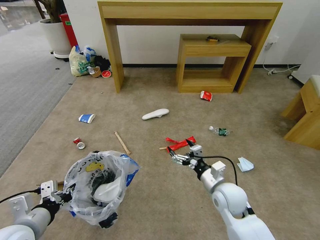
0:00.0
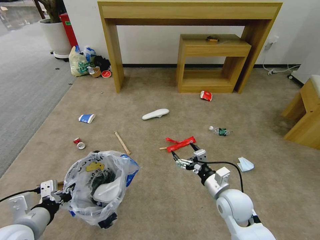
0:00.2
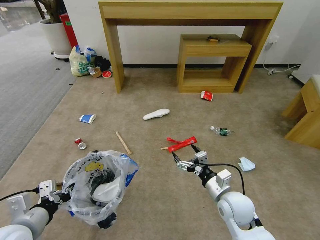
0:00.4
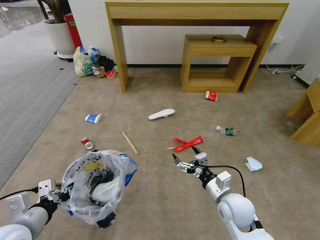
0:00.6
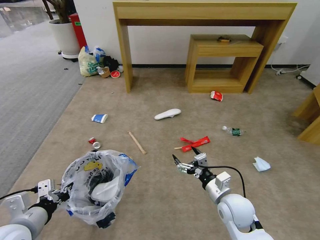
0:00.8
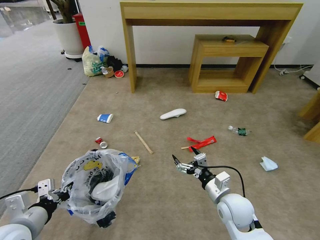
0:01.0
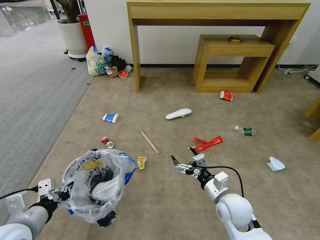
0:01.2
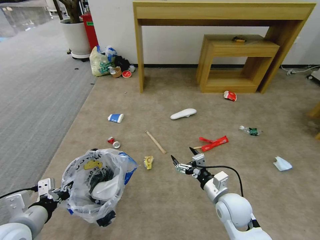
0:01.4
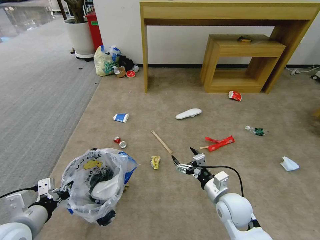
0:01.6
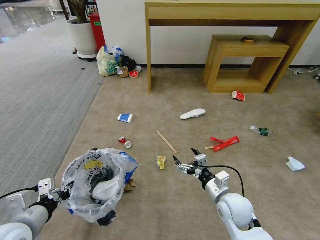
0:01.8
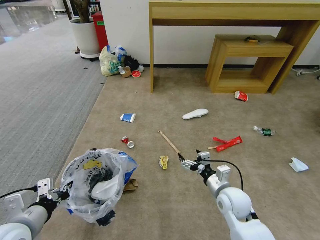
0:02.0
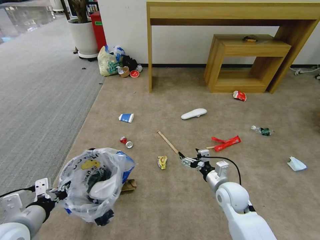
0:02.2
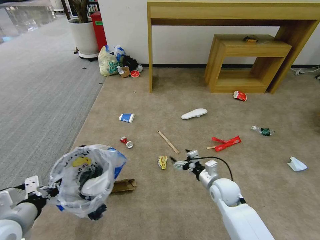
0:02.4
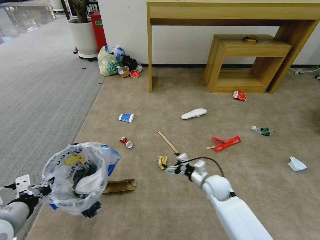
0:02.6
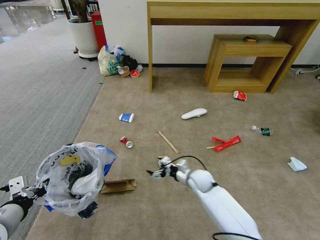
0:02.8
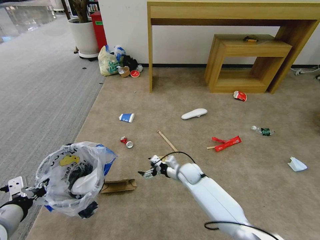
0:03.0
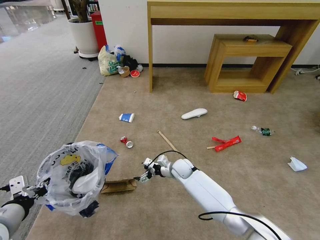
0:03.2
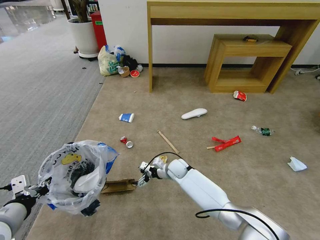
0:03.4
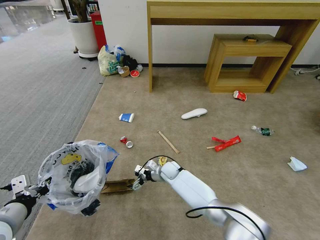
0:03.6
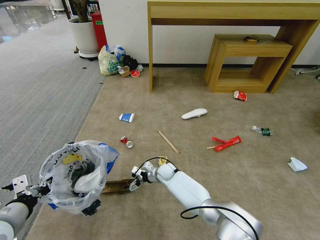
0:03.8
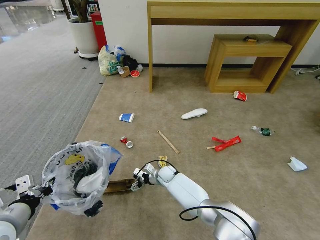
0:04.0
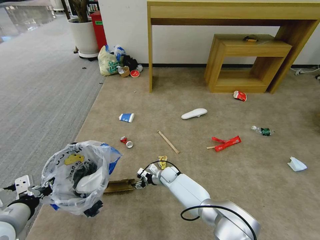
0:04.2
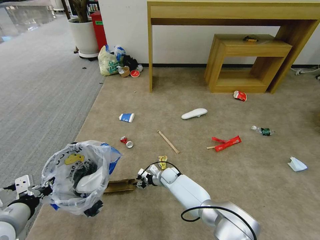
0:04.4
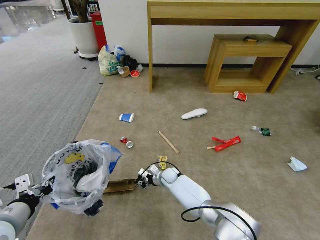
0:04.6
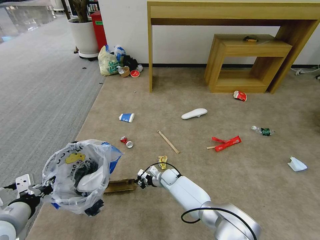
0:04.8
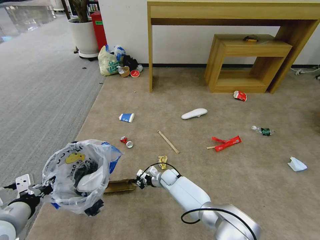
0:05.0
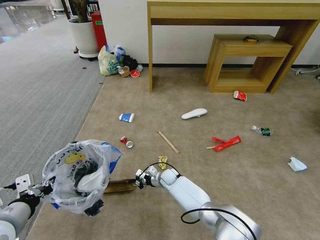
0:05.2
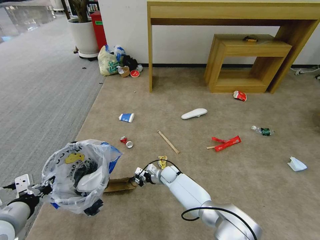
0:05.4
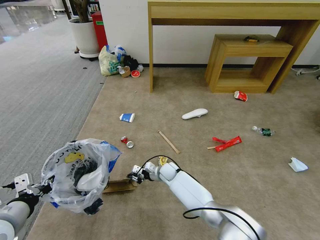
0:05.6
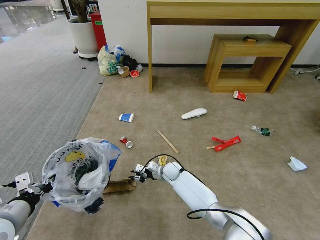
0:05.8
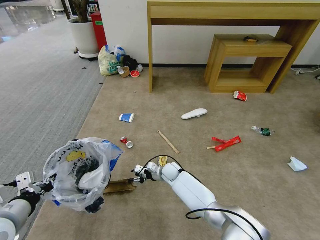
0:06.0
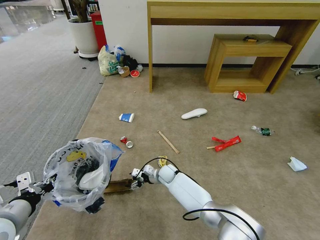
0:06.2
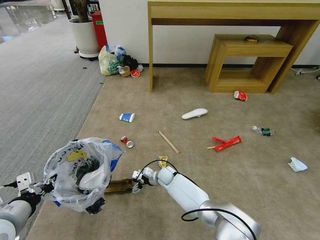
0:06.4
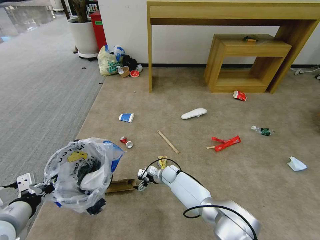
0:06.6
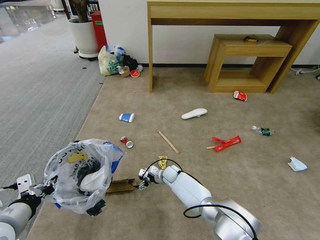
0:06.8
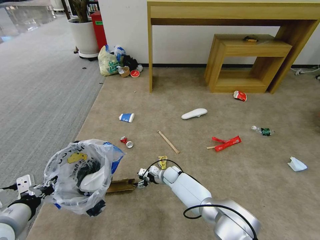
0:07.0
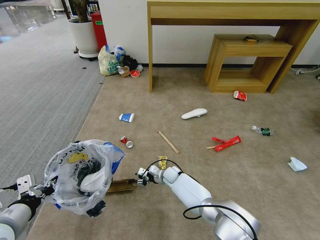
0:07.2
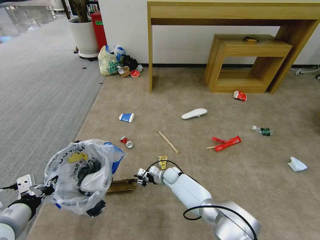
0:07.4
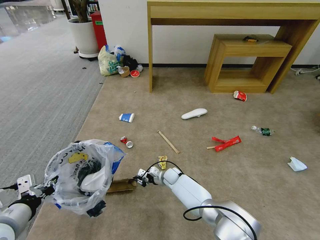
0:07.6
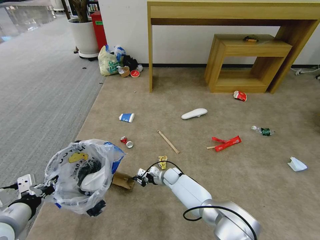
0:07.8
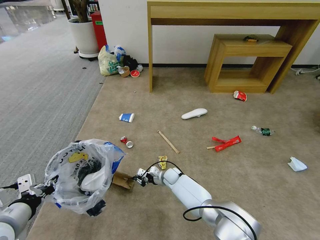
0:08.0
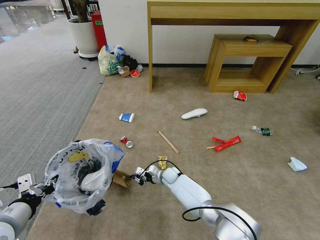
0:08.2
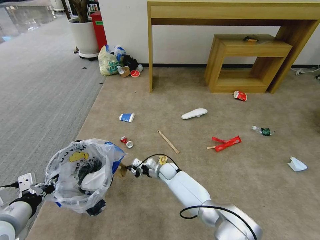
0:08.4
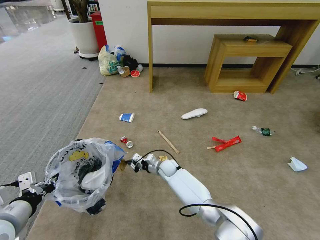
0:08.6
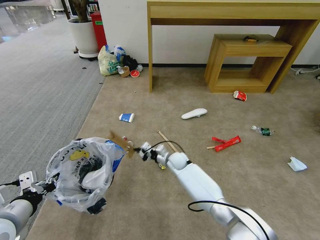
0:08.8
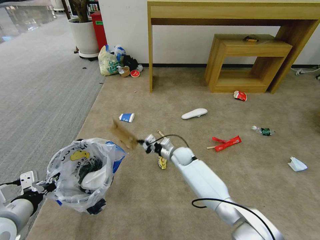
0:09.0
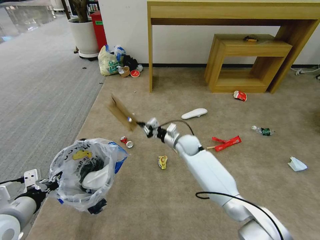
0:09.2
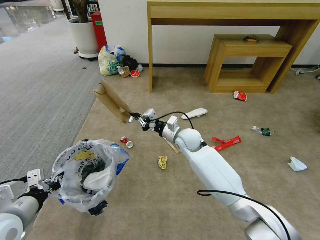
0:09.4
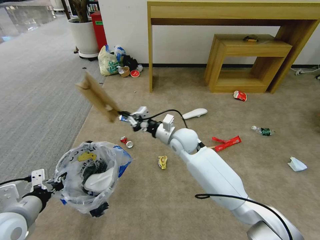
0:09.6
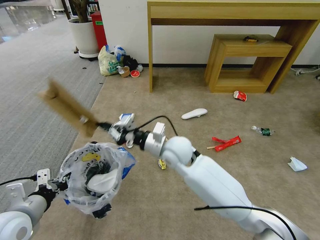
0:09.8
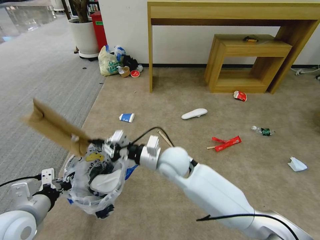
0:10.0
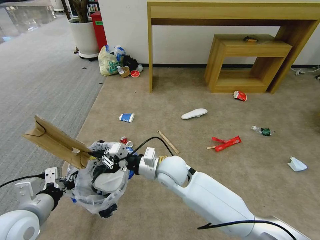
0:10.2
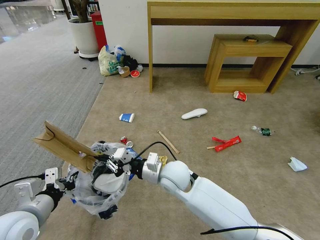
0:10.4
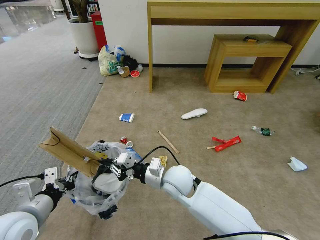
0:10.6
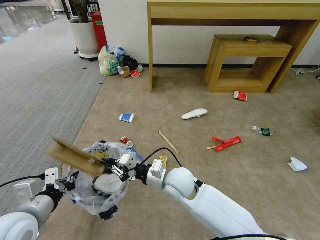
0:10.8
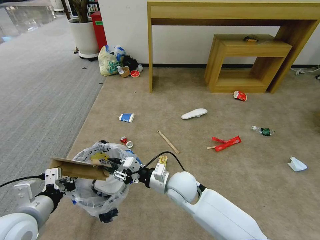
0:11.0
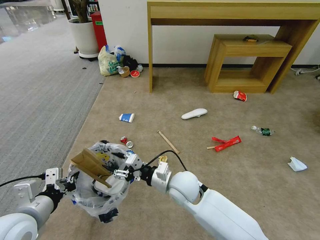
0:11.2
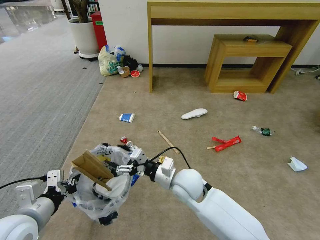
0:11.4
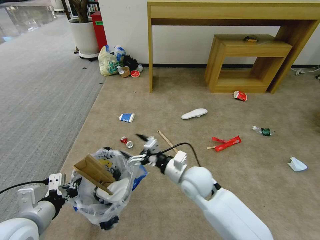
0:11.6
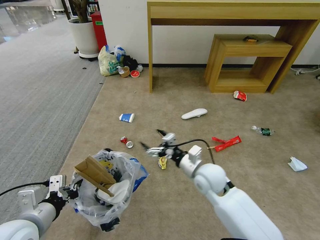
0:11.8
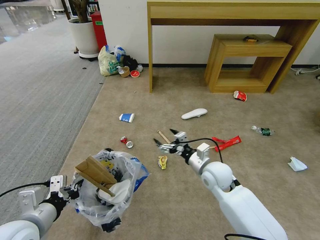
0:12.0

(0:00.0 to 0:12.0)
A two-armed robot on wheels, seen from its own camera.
Task of the whole recording: Pick up the trash bin and place the garbage on the floor into it.
0:01.6 - 0:03.0: The right gripper goes approximately 20 cm forward, to the left and downward.
0:03.0 - 0:04.4: The right gripper shifts some 10 cm downward and to the left, and closes up.
0:04.4 - 0:06.0: The right gripper closes, then reopens.
0:06.0 - 0:07.6: The right gripper closes its fingers.
0:07.6 - 0:09.0: The right gripper is displaced upward by about 10 cm.
0:09.0 - 0:10.4: The right gripper travels backward and upward by about 20 cm.
0:10.4 - 0:12.0: The right gripper heads to the right, covering approximately 15 cm, and opens its fingers.

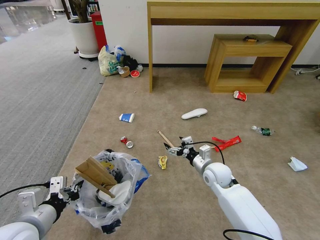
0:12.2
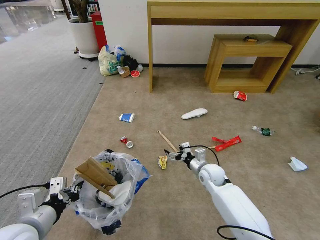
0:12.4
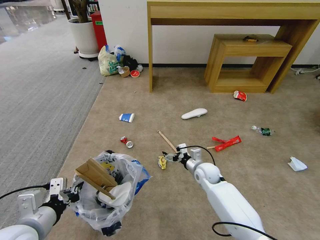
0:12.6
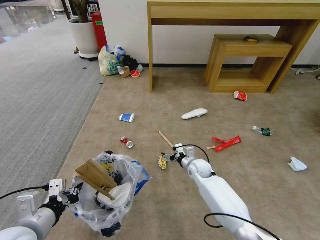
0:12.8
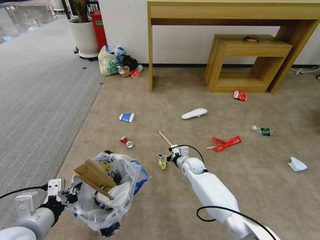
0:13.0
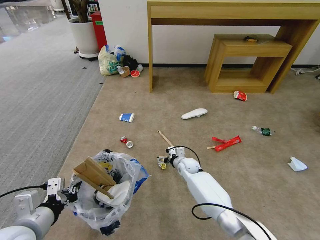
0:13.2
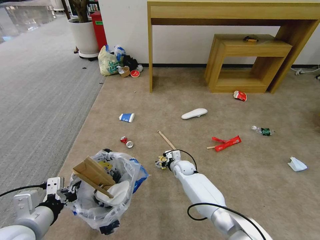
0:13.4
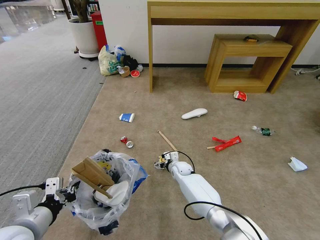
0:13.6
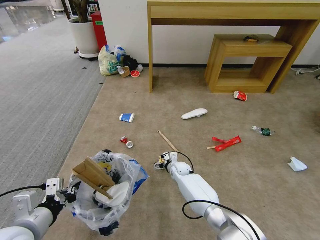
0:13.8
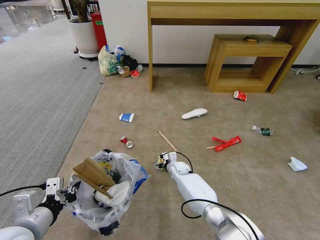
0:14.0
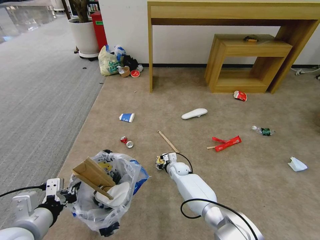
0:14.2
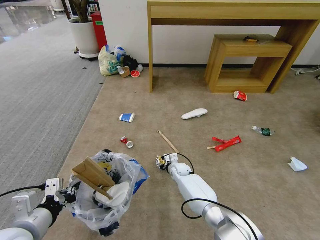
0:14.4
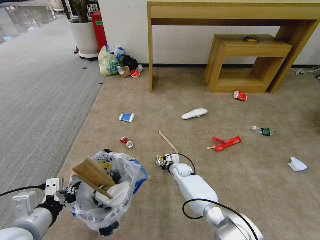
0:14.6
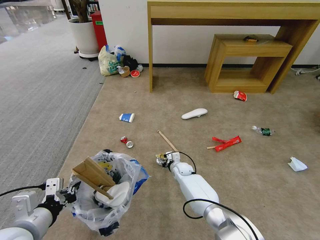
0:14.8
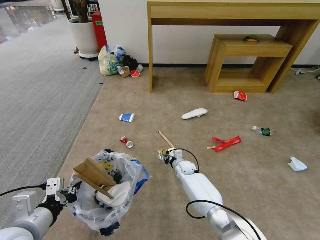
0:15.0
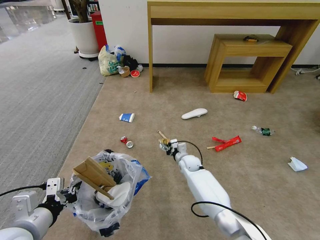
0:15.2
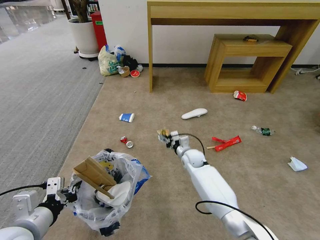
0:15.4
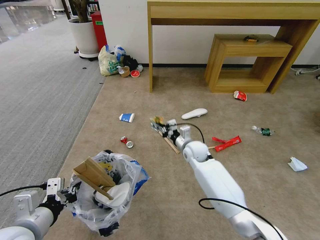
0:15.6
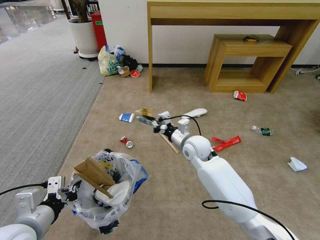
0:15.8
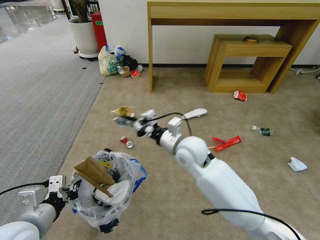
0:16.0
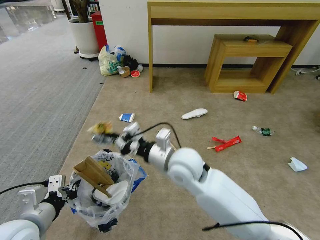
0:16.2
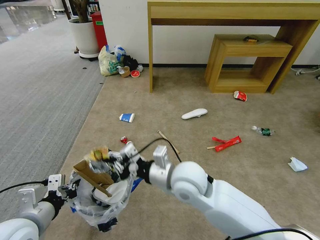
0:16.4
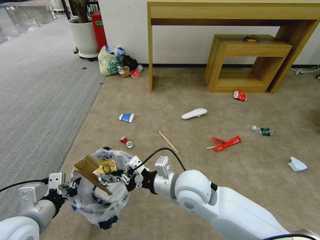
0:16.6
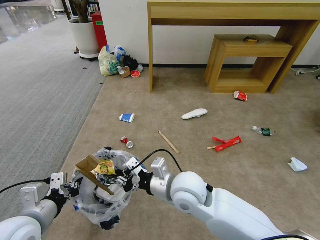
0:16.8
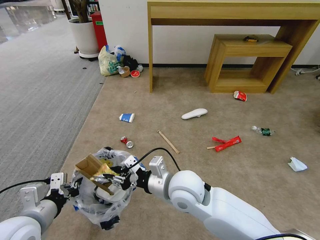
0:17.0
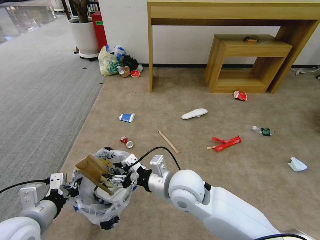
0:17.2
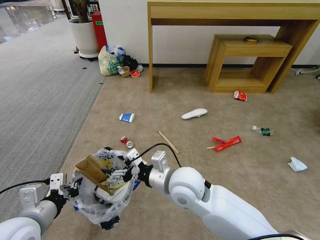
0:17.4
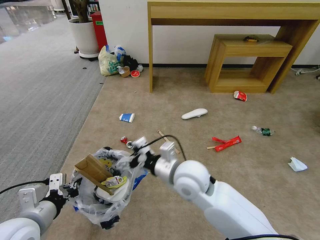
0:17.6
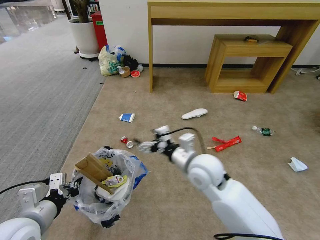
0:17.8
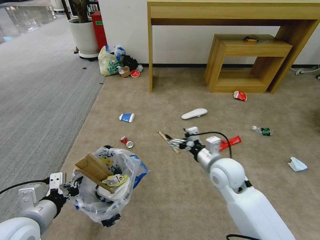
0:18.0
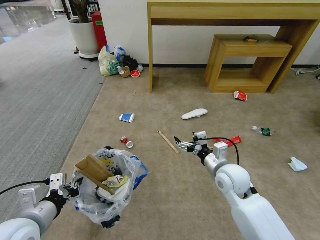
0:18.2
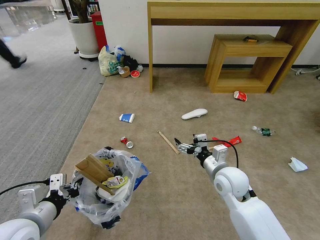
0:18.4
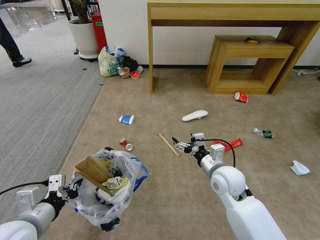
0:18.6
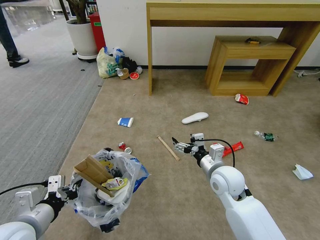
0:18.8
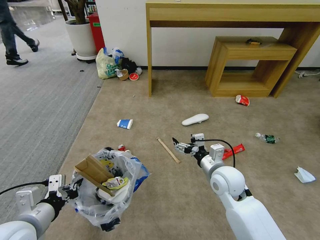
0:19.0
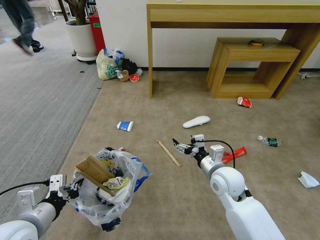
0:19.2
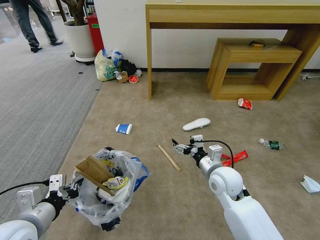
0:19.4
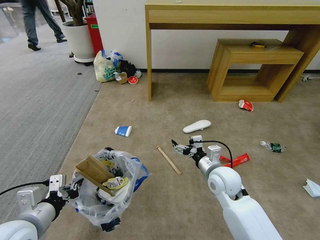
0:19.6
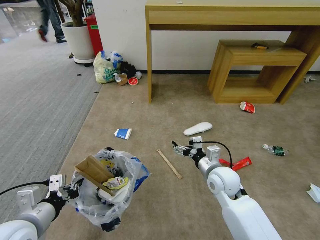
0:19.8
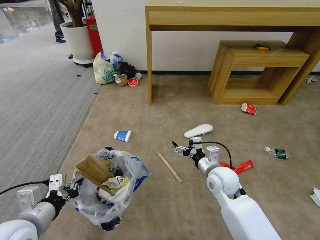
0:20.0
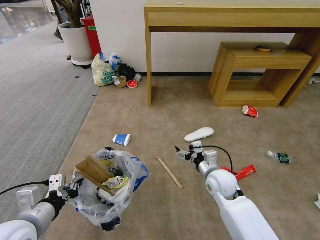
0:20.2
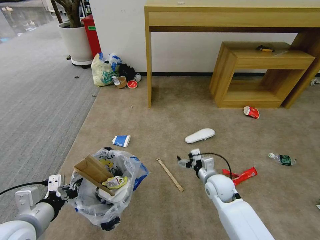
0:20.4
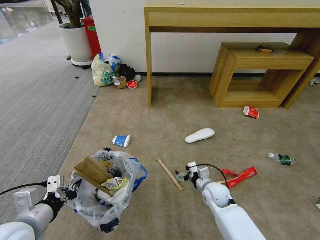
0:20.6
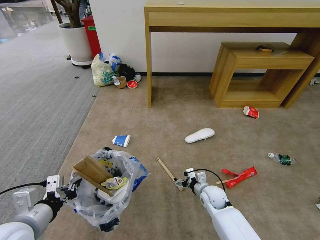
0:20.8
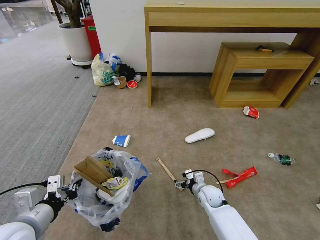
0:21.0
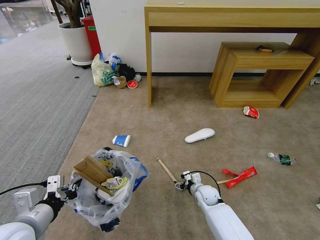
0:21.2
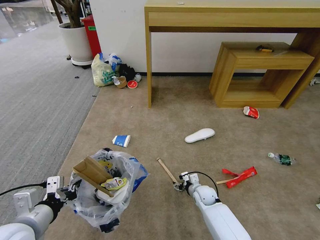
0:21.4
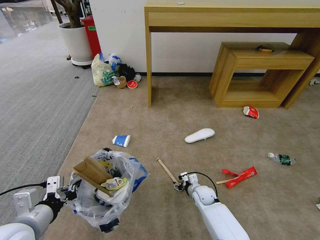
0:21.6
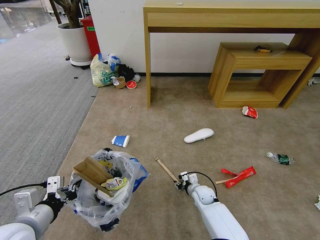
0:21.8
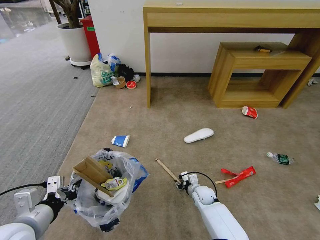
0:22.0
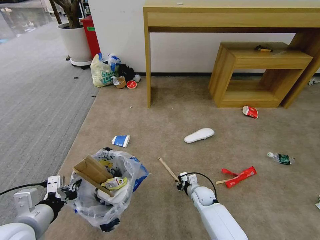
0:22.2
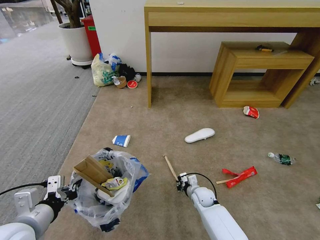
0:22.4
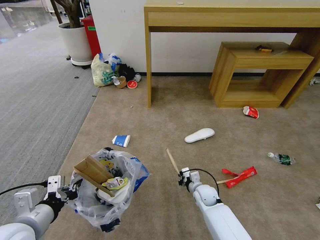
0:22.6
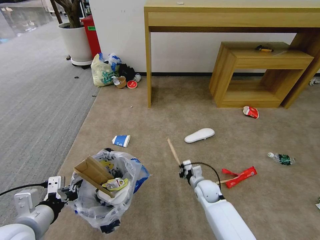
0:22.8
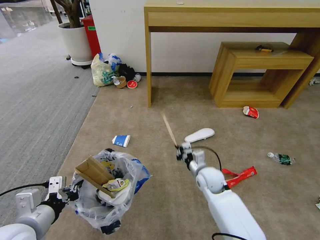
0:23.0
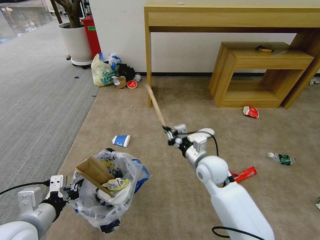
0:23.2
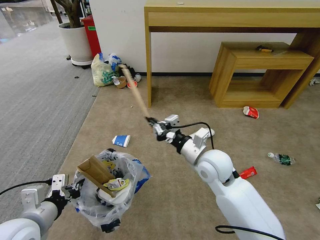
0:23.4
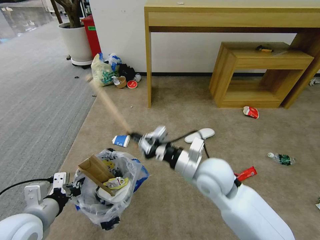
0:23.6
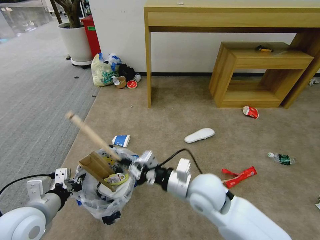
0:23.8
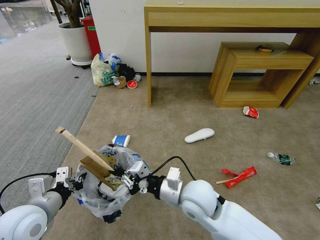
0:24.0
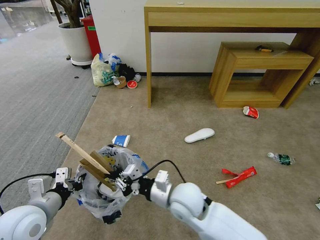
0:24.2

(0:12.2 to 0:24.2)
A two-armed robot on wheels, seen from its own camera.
Task of the whole recording: Pick up the trash bin and place the garbage on the floor into it.
0:12.2 - 0:13.8: The right gripper is displaced downward, to the left and forward by some 20 cm.
0:13.8 - 0:15.2: The right gripper closes its fingers.
0:15.2 - 0:16.6: The right gripper shifts about 30 cm upward and backward.
0:16.6 - 0:18.2: The right gripper goes about 15 cm to the right, and opens.
0:19.8 - 0:21.2: The right gripper goes roughly 20 cm downward.
0:21.2 - 0:22.6: The right gripper closes its fingers.
0:22.6 - 0:24.2: The right gripper travels upward, to the left and backward by some 25 cm.
